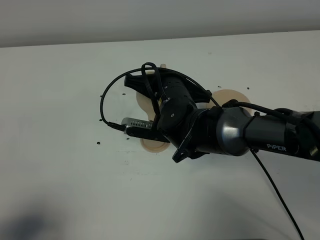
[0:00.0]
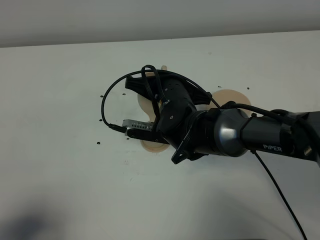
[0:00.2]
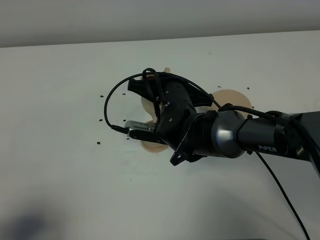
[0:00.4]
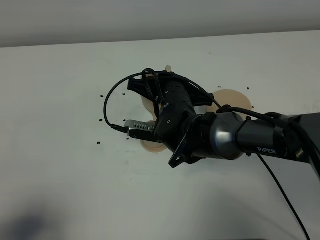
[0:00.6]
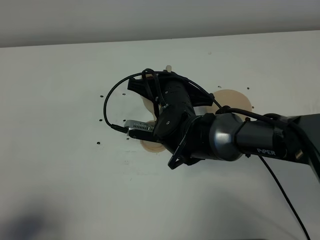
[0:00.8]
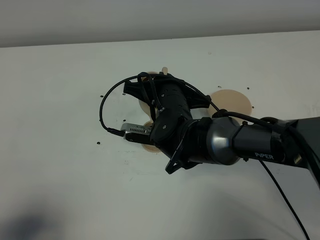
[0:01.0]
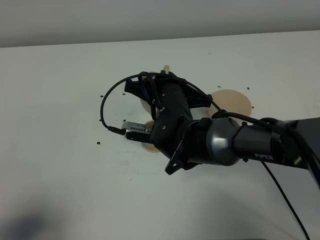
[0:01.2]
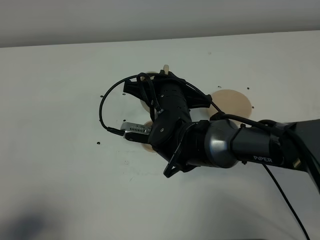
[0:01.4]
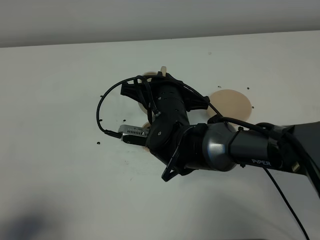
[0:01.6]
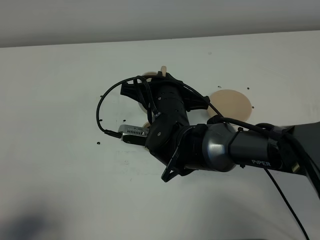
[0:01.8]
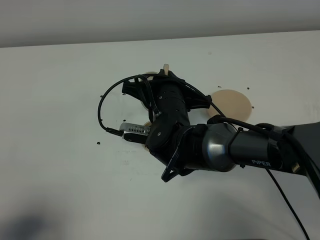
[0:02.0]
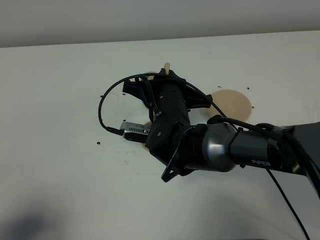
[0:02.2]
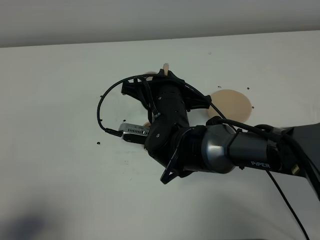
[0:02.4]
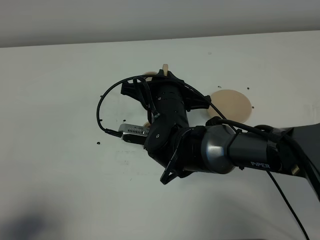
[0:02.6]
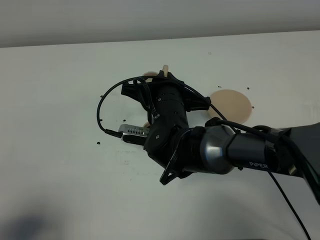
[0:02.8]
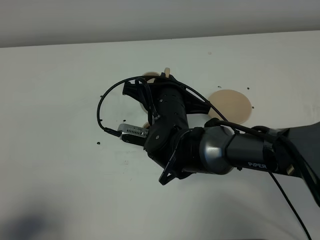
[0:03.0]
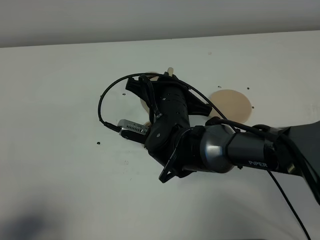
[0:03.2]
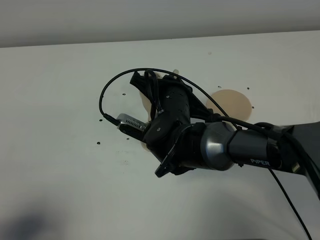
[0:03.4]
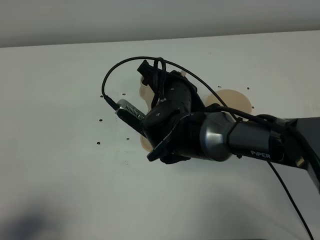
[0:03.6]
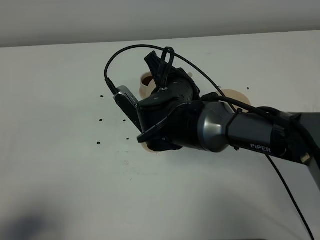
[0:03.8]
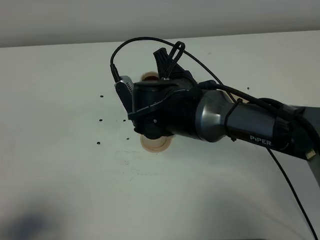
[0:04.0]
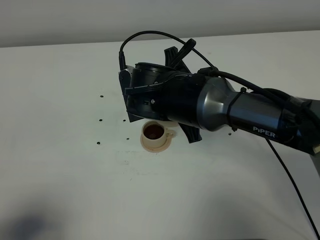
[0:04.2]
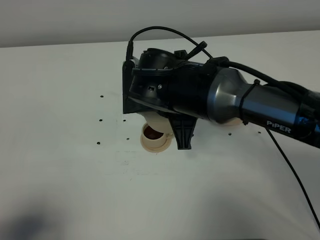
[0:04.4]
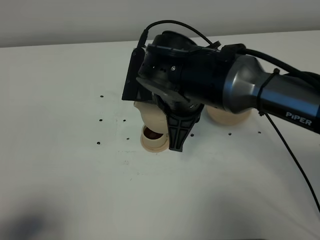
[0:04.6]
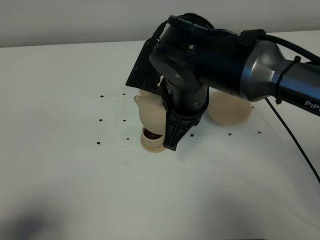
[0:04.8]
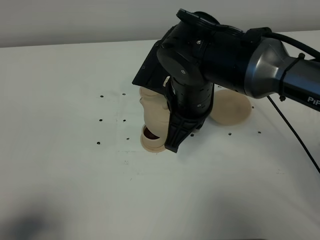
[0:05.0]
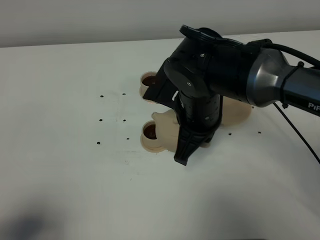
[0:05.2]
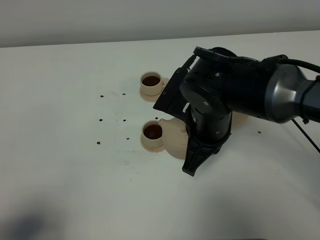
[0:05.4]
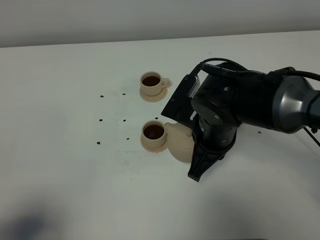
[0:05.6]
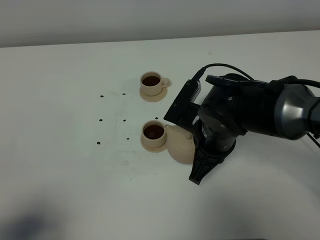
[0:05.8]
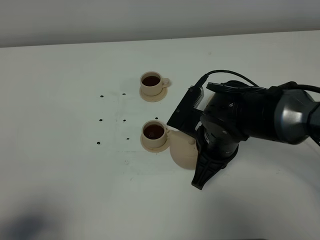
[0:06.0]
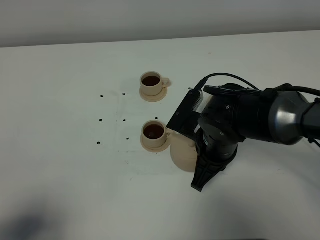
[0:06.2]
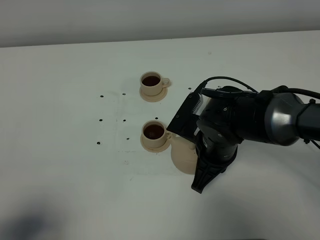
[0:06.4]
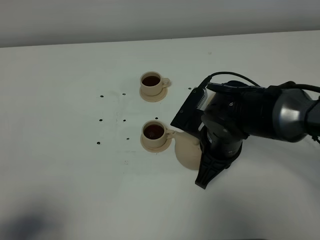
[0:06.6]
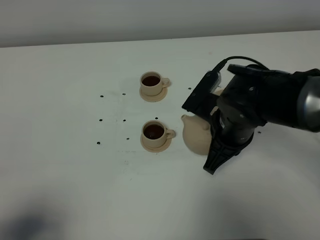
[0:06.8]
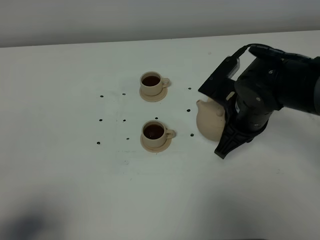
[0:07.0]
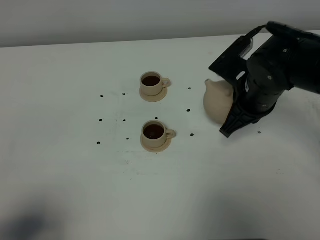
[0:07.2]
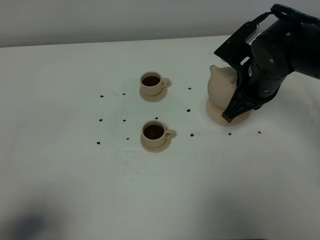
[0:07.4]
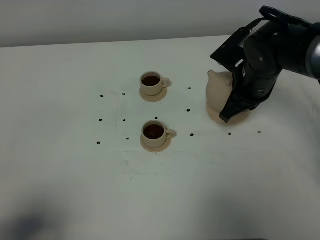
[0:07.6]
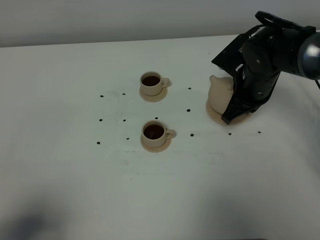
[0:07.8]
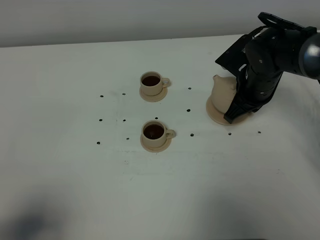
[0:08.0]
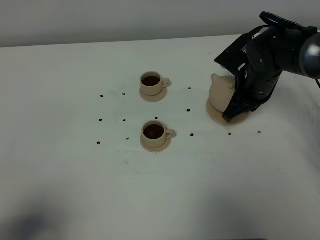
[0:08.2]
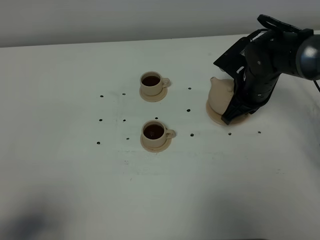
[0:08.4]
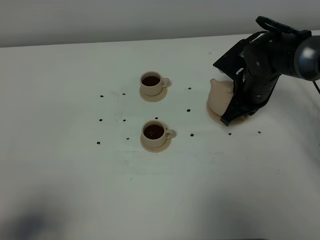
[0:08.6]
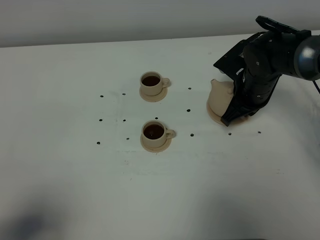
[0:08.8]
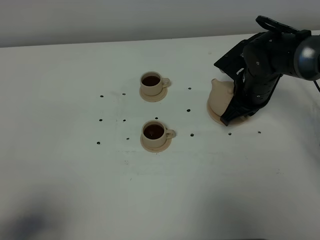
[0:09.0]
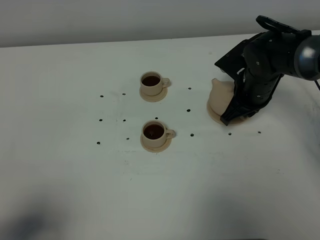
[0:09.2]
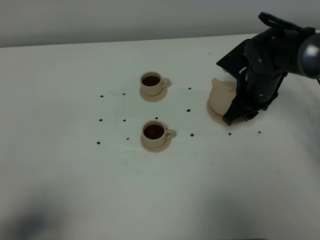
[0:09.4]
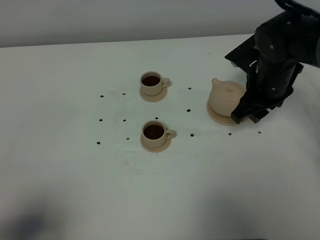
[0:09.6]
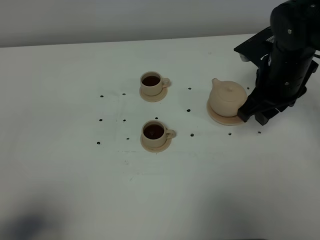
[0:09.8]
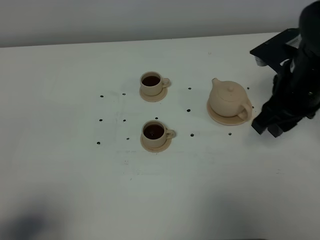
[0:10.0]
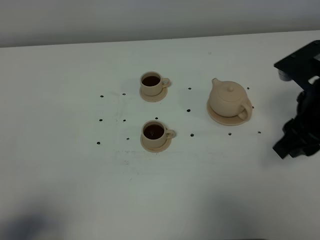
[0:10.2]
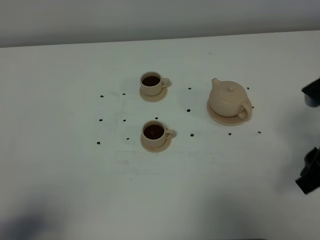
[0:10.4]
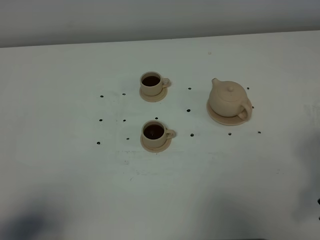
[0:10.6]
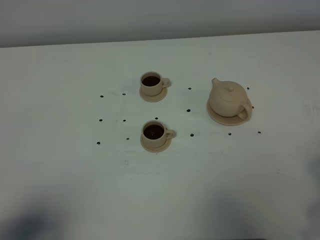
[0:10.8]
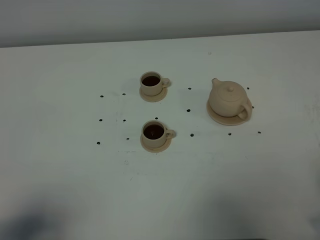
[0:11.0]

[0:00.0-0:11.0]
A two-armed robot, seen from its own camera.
Task of the whole recording: grasp the brown teapot and pour the tea into the two brown teacups one by one, put the brown teapot back in its original place.
Step, 0:00.0 to 0:03.4: Pour tea into the teacup with the right gripper.
0:00.0 to 0:03.2: The grippers move only a little.
0:03.2 to 0:04.8: The right gripper goes about 10 cm upward.
0:04.8 to 0:06.2: The right gripper is displaced downward and to the right by about 10 cm.
0:06.2 to 0:07.8: The right gripper travels forward and to the right by some 15 cm.
0:07.8 to 0:09.4: The right gripper opens.
0:09.4 to 0:11.0: The right gripper moves backward, some 30 cm.
